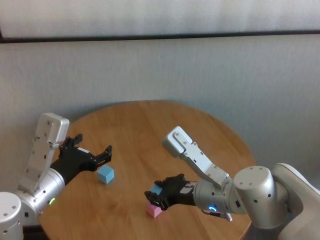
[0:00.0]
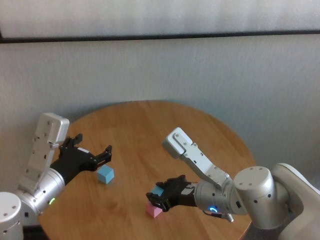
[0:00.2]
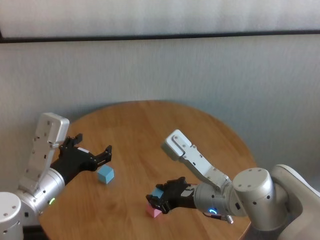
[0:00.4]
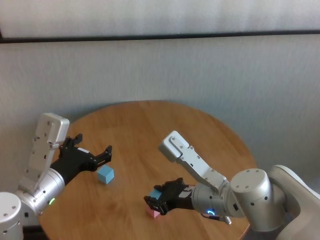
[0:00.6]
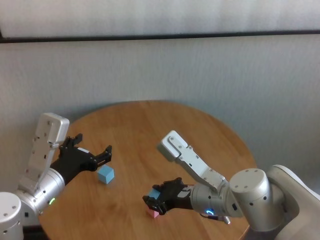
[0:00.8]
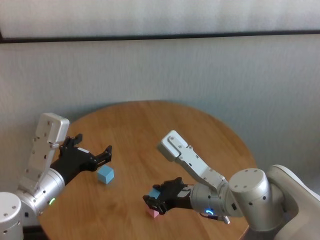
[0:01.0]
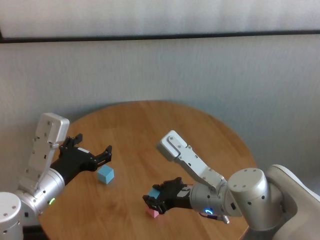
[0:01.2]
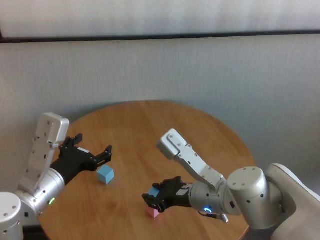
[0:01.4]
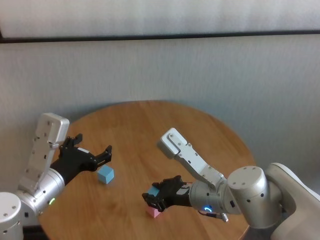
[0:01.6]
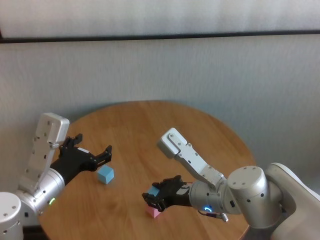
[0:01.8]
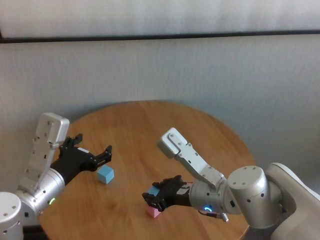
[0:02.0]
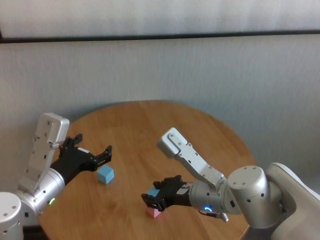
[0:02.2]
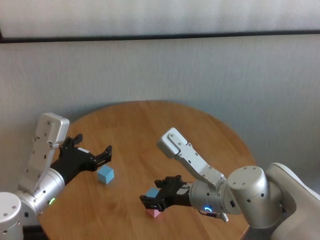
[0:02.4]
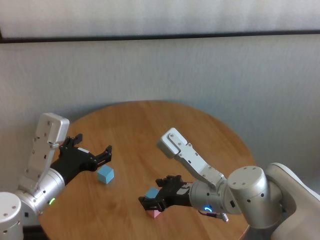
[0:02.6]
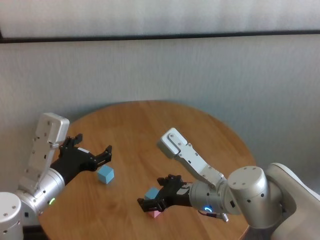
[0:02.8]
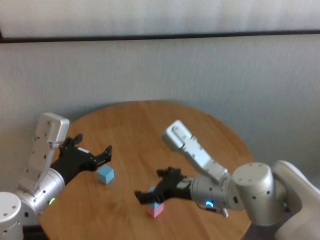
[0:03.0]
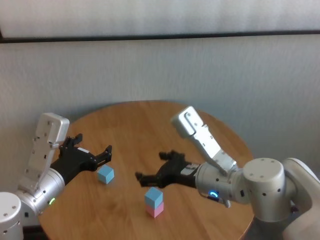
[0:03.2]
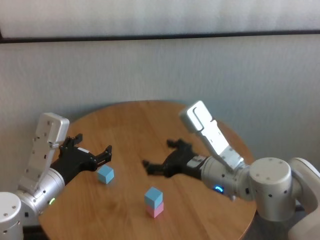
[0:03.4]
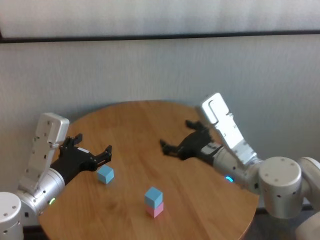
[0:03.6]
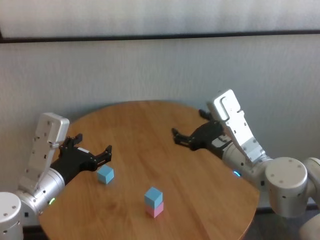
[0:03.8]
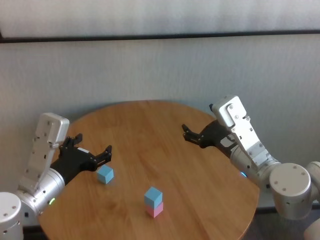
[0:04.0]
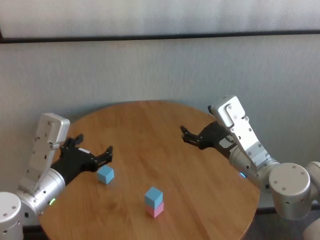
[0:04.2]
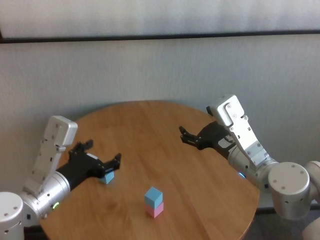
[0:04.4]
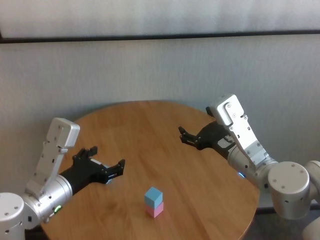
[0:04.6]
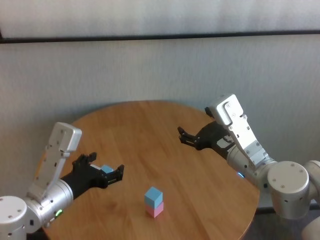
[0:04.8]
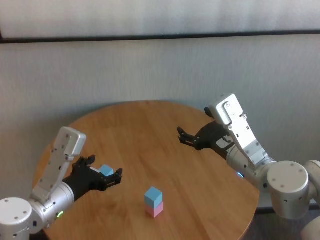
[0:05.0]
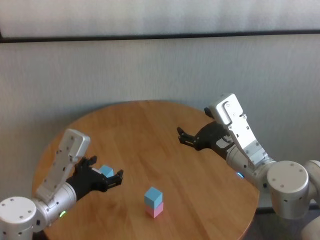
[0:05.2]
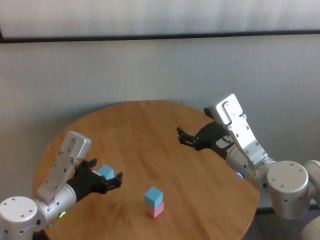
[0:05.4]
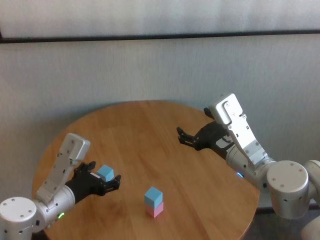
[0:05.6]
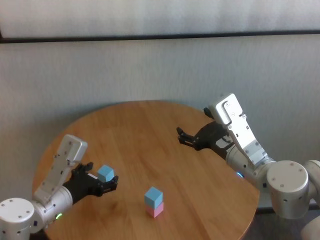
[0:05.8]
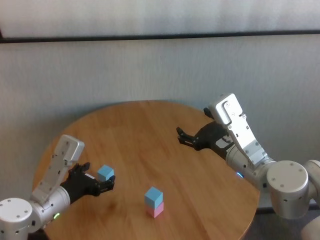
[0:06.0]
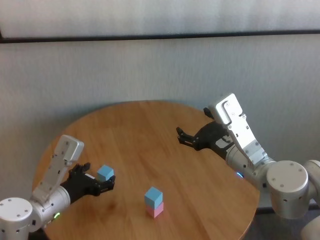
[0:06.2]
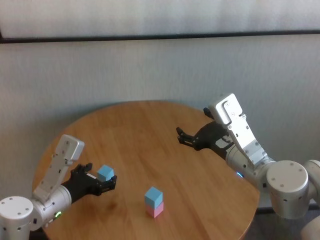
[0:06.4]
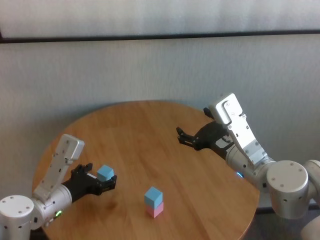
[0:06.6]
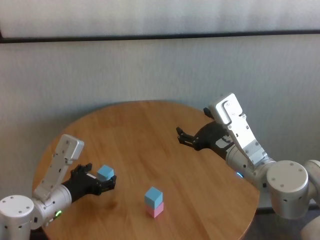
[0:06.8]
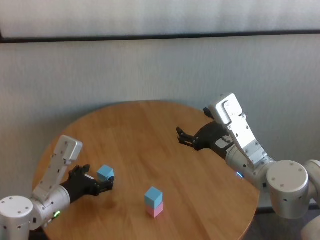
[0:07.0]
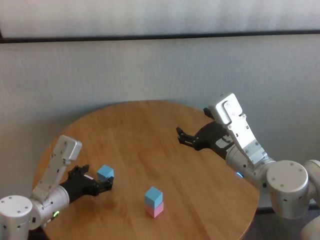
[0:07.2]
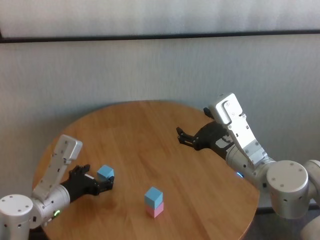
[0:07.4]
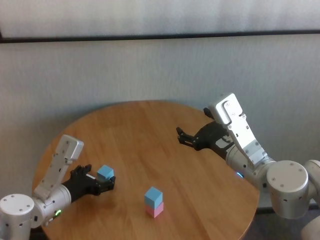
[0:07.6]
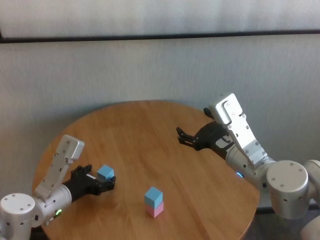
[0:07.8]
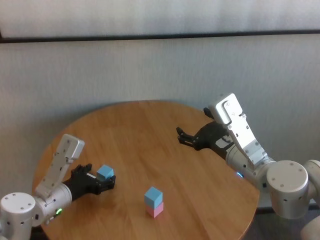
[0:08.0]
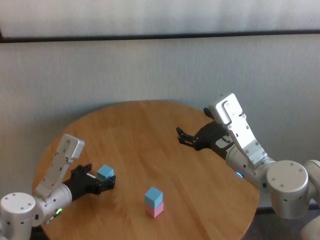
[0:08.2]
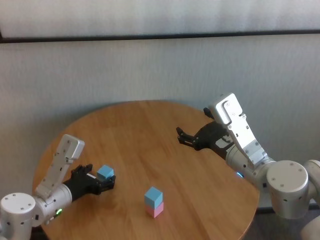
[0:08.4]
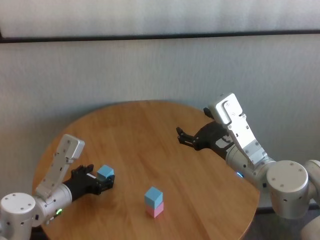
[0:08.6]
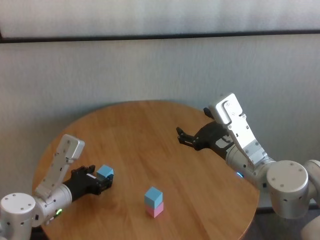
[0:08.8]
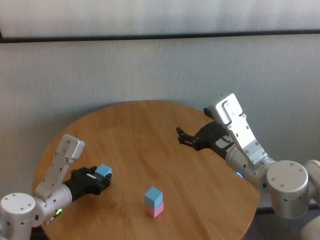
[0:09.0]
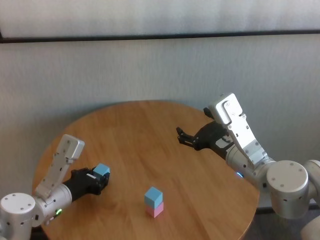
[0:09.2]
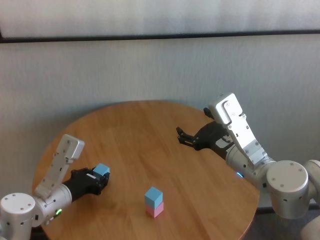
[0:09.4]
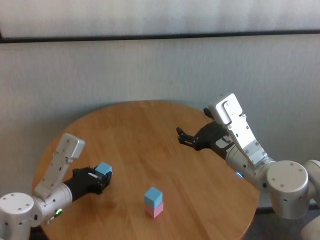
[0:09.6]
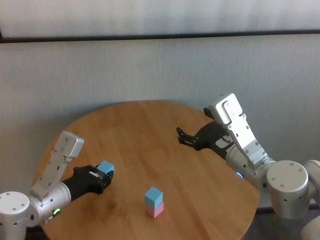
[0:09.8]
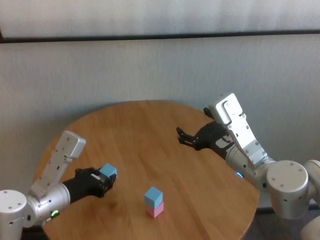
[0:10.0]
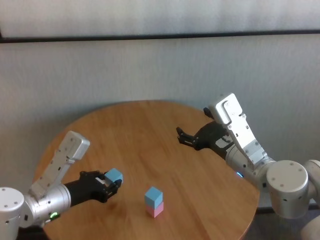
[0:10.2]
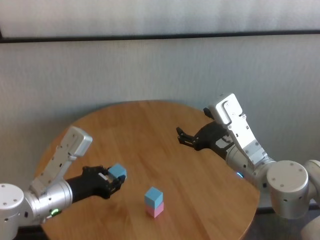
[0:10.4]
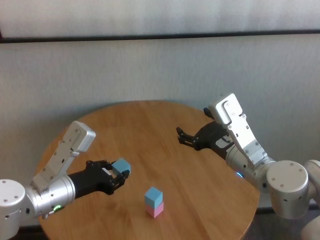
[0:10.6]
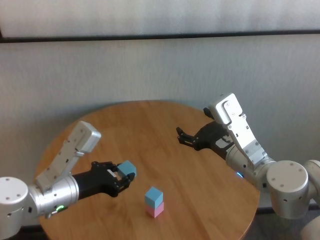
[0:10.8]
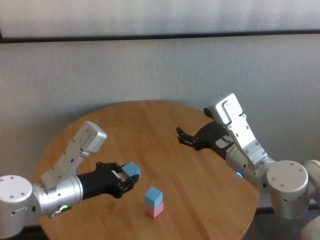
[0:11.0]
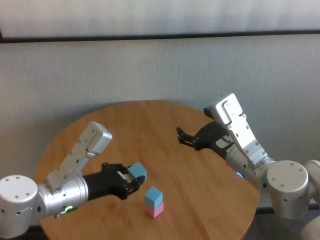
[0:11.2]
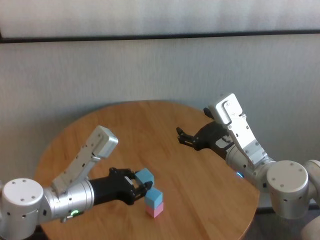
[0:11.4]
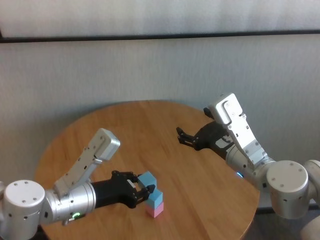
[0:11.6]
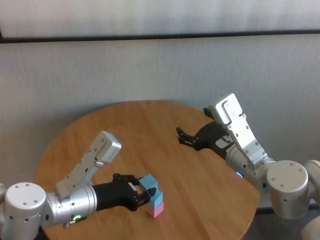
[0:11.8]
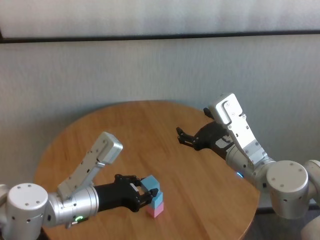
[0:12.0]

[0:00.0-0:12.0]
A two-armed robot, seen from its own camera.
Task of the whole recording: stack building blocks on the table.
Step, 0:00.0 to 0:02.6: Place the blue building block on the pink building blocks with right gripper.
Step, 0:02.8 to 0:09.2: Grasp the blue building block with left gripper.

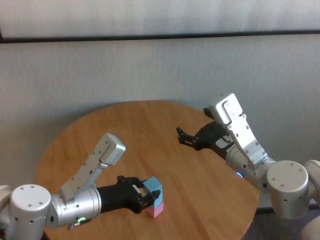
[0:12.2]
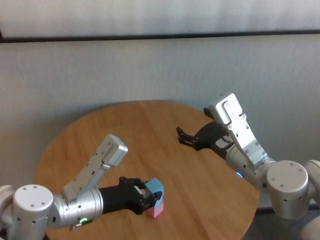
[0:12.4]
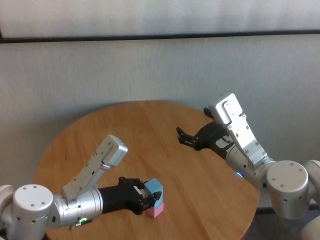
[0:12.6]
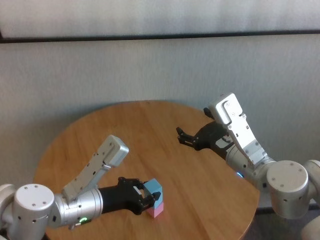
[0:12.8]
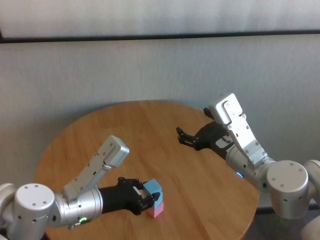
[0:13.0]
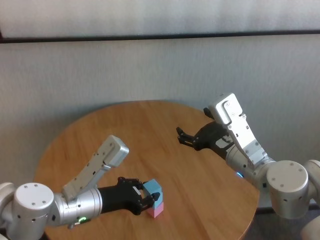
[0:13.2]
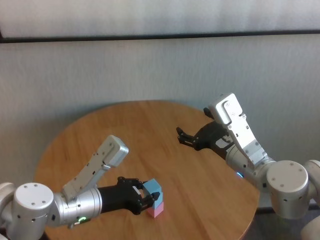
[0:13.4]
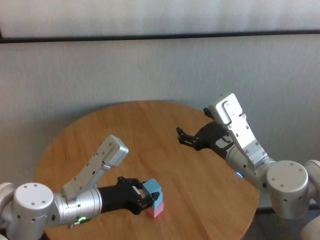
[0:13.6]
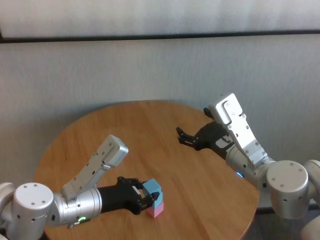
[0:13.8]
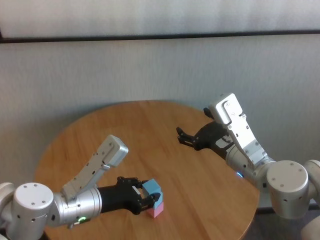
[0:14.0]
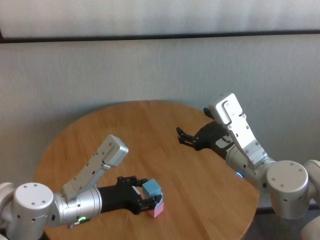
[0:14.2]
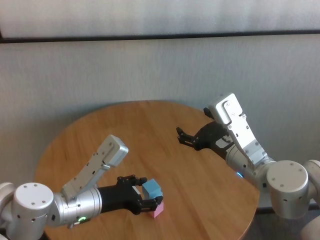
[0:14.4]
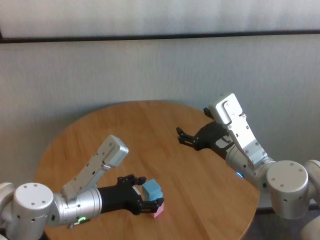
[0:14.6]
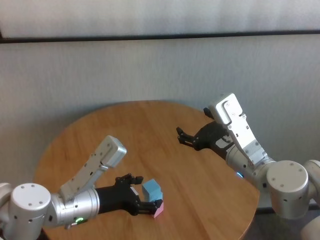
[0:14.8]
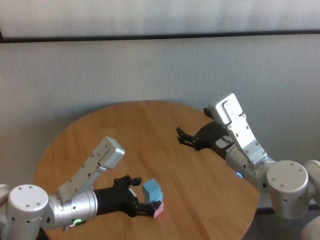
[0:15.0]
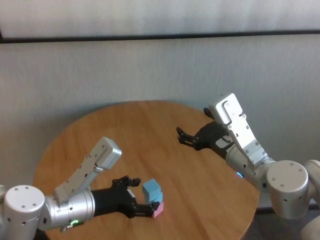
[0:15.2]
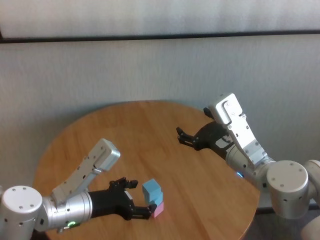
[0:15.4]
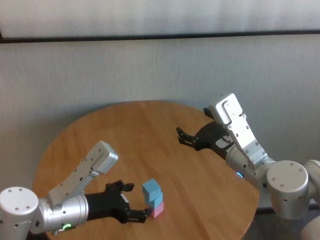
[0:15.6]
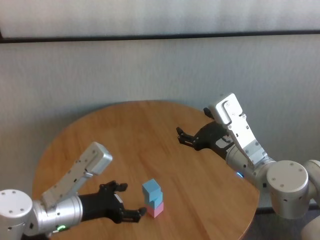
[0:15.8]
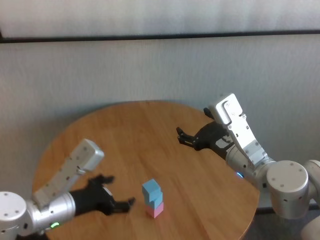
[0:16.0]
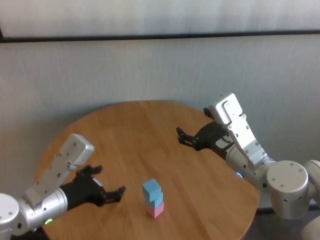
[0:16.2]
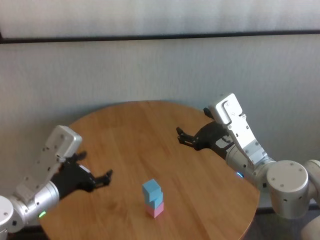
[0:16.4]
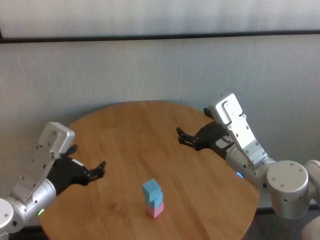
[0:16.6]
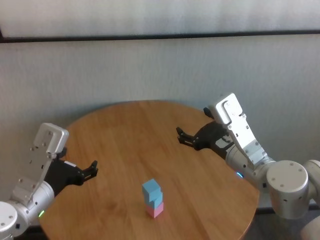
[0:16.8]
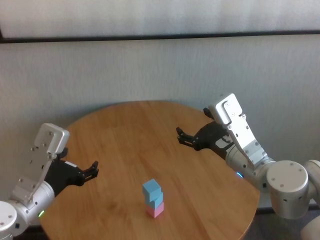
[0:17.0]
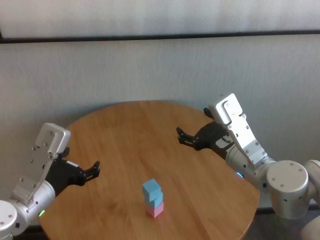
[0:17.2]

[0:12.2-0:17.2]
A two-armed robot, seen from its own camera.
Task of the whole recording: stack building blocks on the table.
Step, 0:12.2 to 0:14.4: Place the blue building block on the blue building blocks with left gripper.

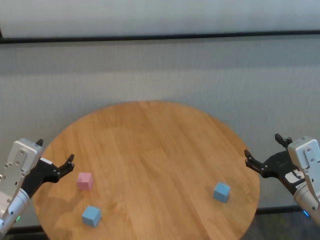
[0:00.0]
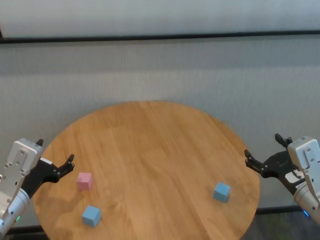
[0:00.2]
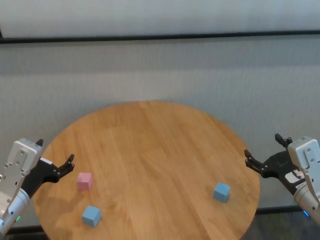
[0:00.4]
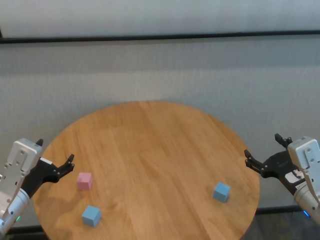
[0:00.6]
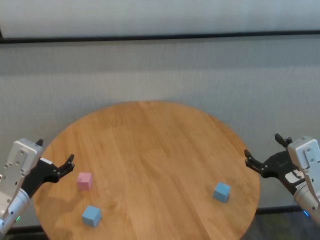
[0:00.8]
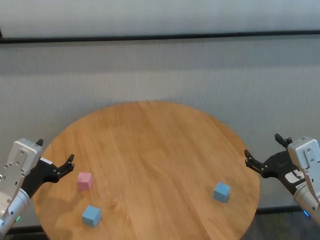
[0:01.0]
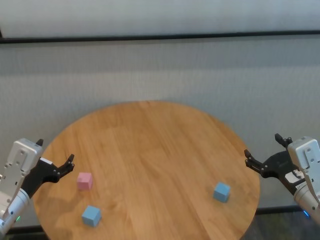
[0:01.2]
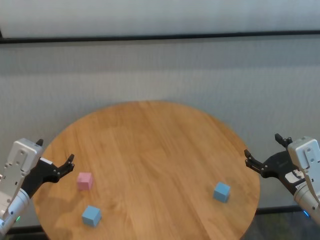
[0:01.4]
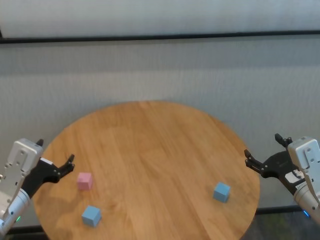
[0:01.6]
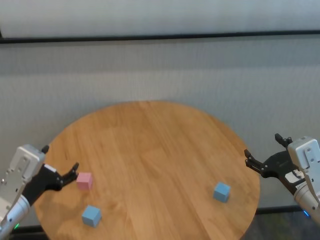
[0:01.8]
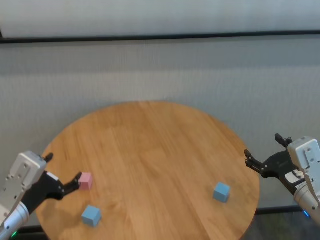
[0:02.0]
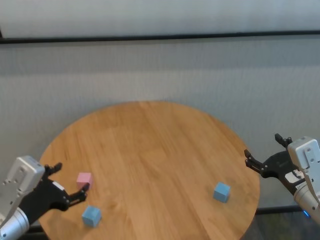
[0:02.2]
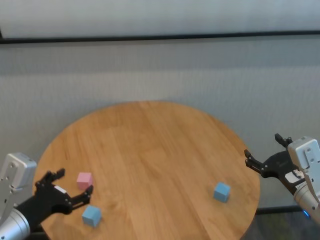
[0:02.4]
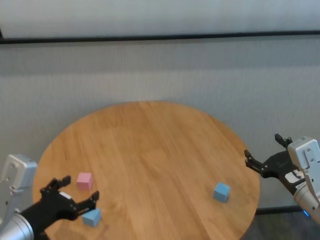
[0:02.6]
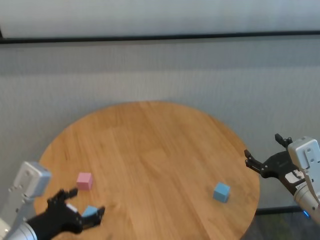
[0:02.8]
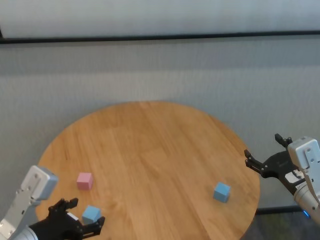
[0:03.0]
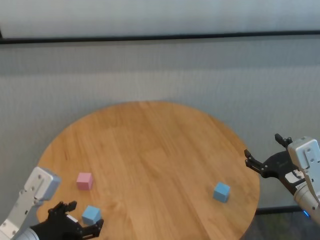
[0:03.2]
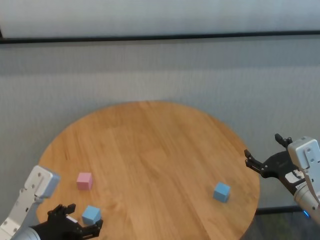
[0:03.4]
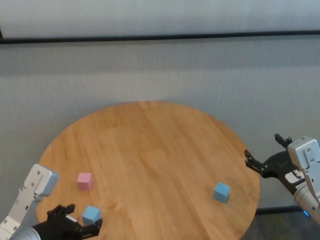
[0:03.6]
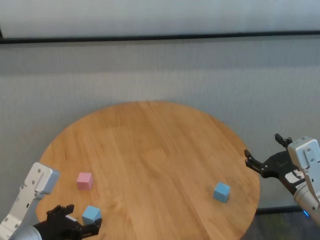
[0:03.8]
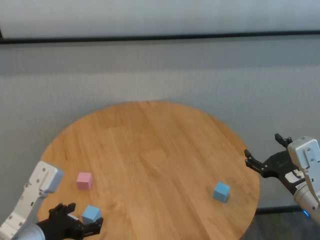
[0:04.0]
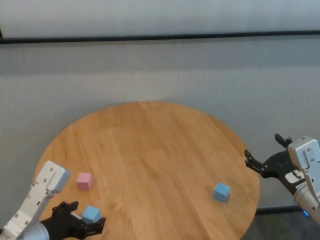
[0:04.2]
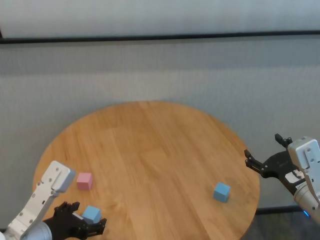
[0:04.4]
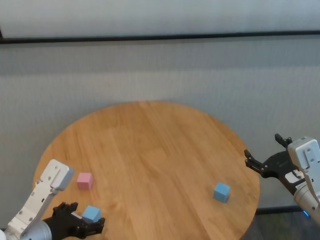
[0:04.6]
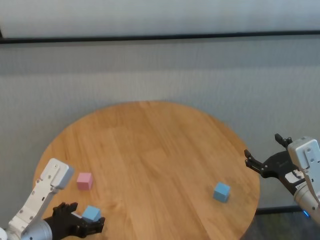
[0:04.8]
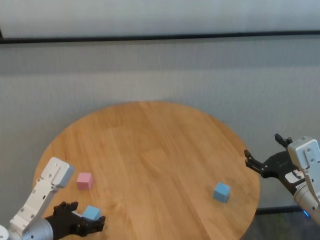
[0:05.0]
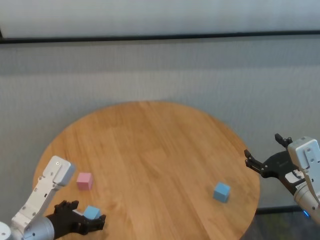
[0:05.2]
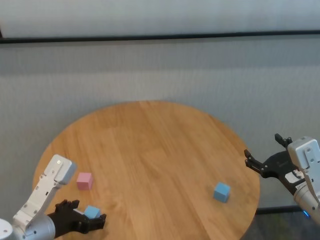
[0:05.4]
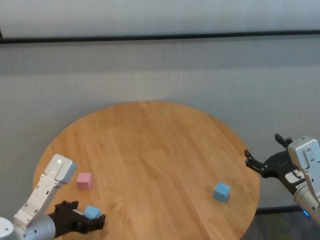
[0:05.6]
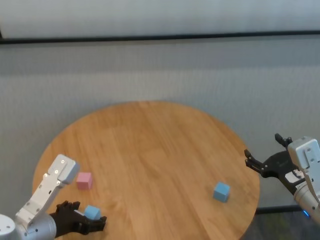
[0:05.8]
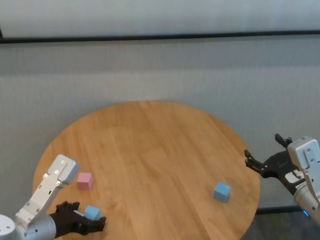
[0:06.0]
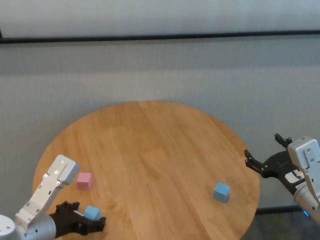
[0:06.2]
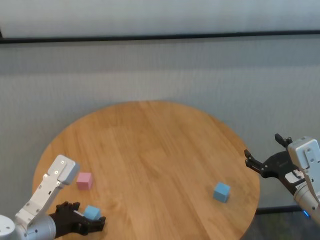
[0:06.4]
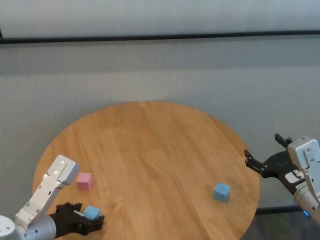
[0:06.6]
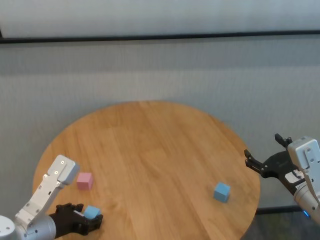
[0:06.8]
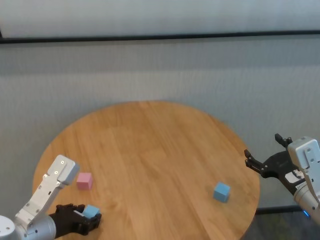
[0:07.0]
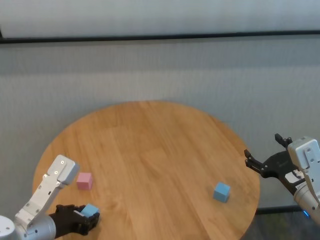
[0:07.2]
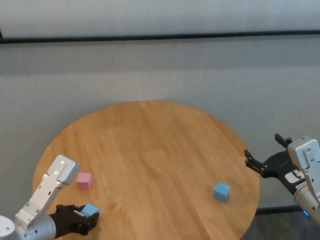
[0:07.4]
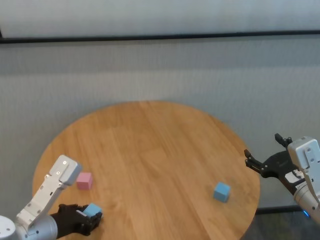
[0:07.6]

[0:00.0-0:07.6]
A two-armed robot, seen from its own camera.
Task of the whole recording: stack building blocks on the table.
Step, 0:00.0 to 0:07.2: Grasp the blue building block with left gripper.
